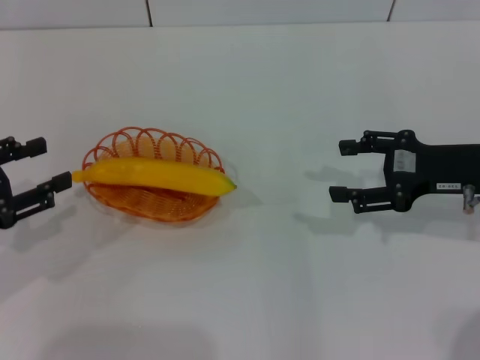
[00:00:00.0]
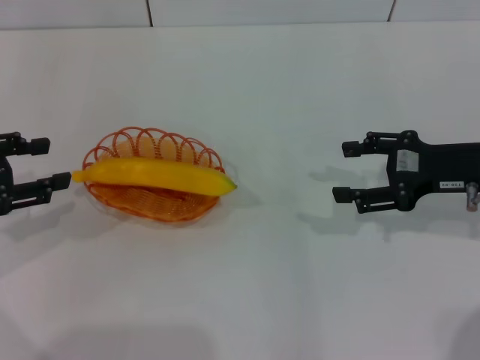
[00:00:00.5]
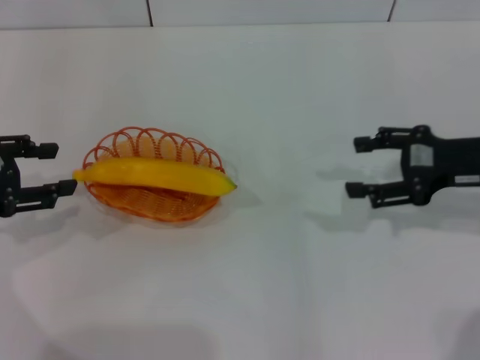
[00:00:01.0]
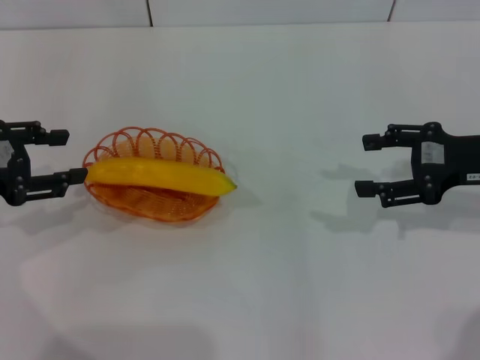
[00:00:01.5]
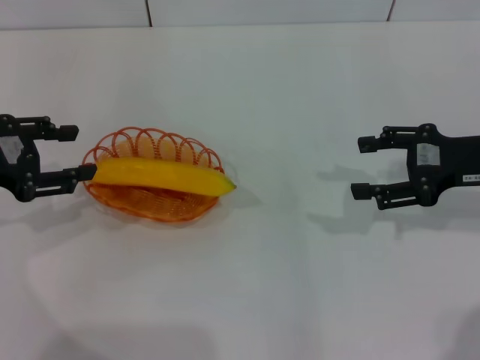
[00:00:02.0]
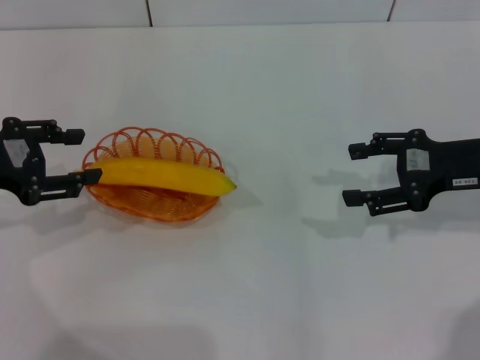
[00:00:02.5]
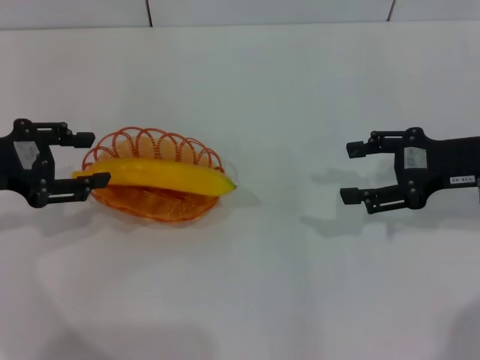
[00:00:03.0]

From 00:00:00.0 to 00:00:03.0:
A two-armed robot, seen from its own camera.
From 00:00:00.0 to 00:00:01.5: The left gripper moves about 5 cm.
From 00:00:01.5 to 00:00:03.0: The grippers make only small movements.

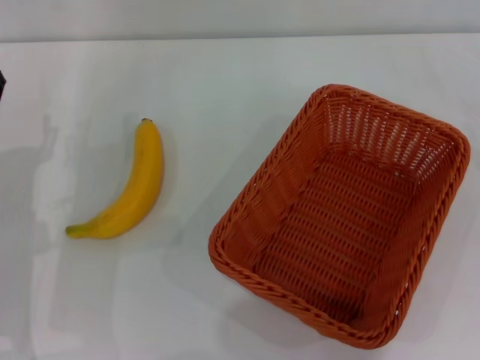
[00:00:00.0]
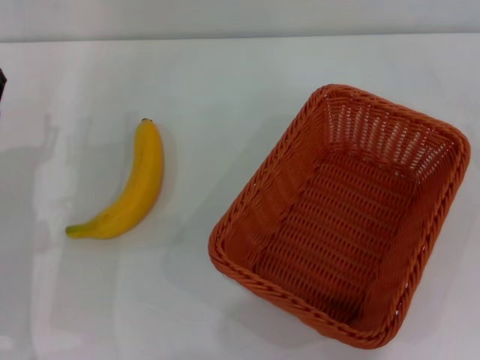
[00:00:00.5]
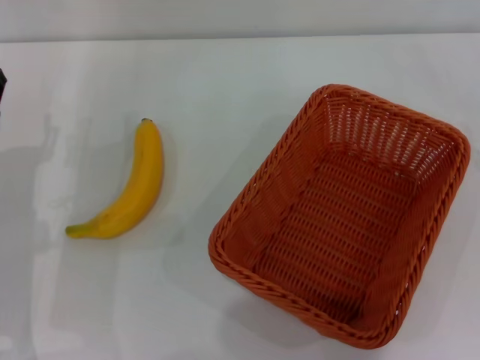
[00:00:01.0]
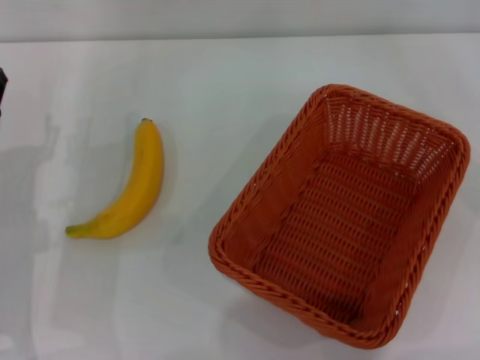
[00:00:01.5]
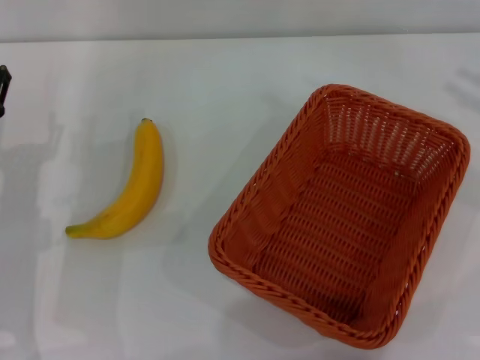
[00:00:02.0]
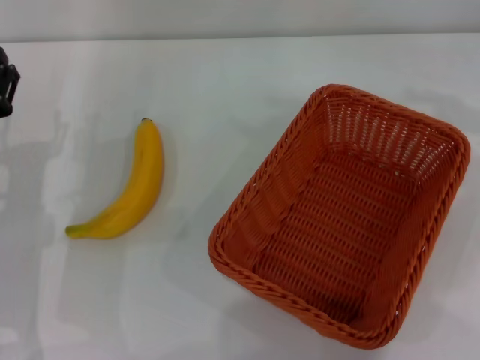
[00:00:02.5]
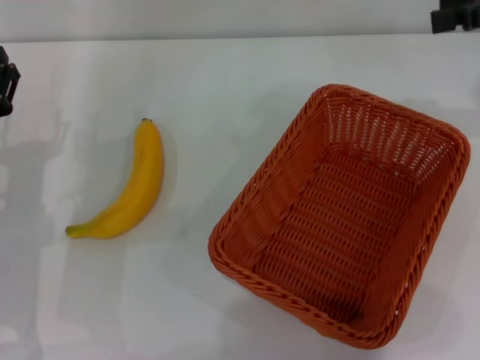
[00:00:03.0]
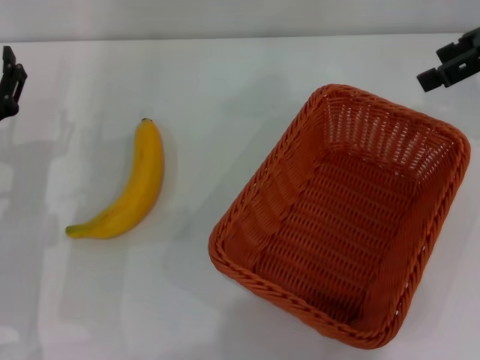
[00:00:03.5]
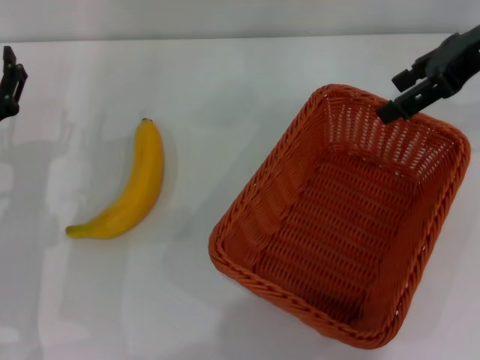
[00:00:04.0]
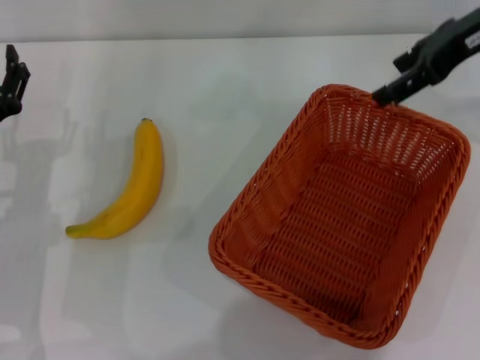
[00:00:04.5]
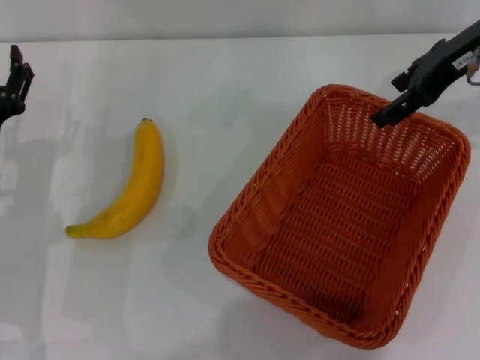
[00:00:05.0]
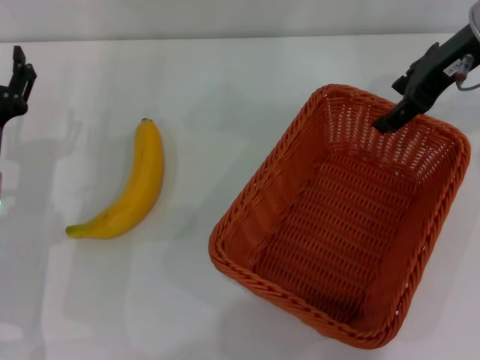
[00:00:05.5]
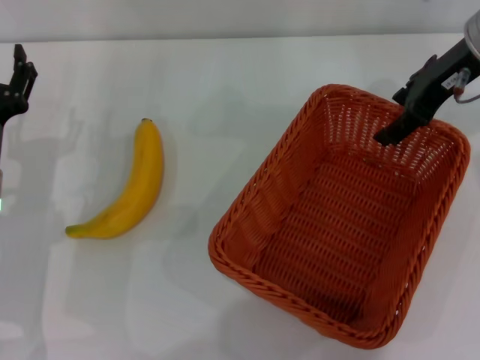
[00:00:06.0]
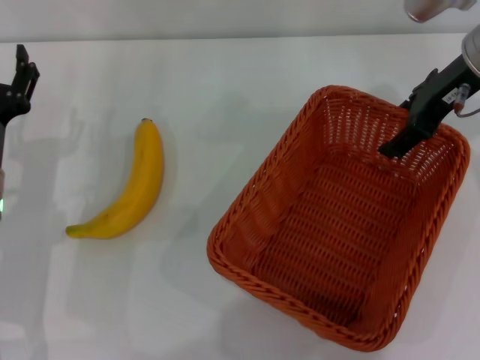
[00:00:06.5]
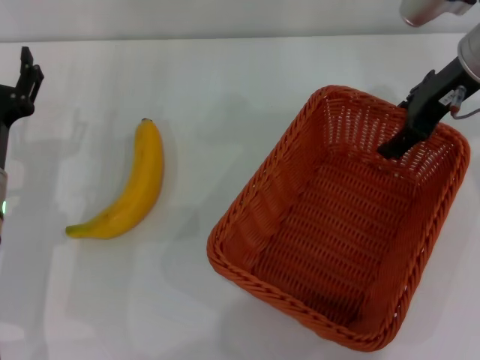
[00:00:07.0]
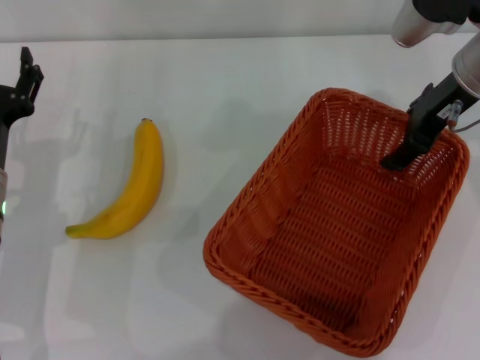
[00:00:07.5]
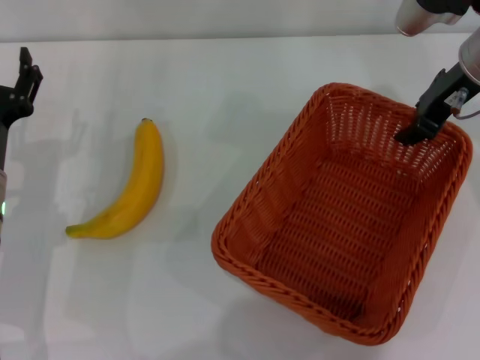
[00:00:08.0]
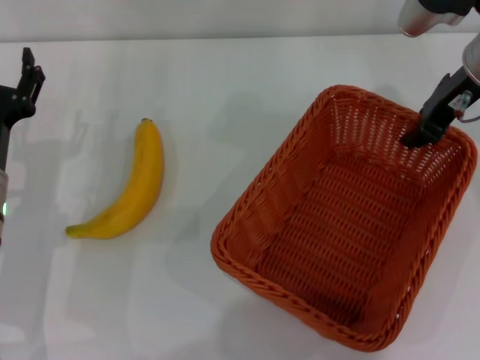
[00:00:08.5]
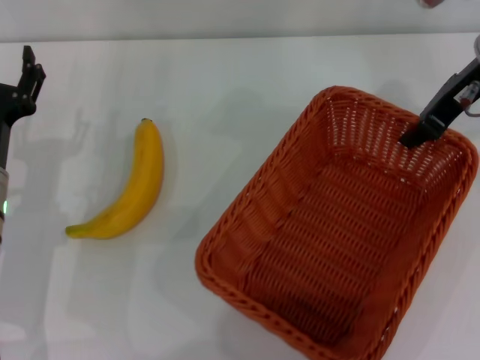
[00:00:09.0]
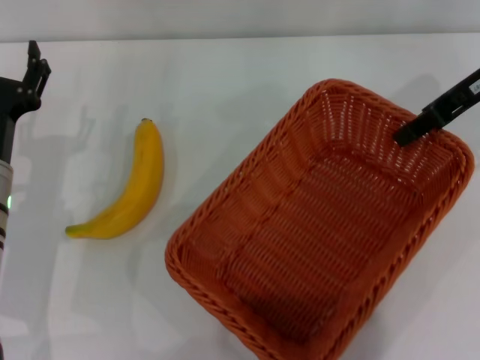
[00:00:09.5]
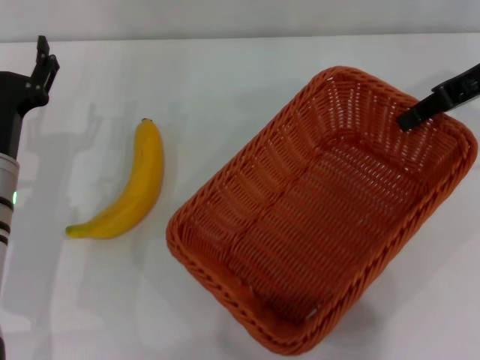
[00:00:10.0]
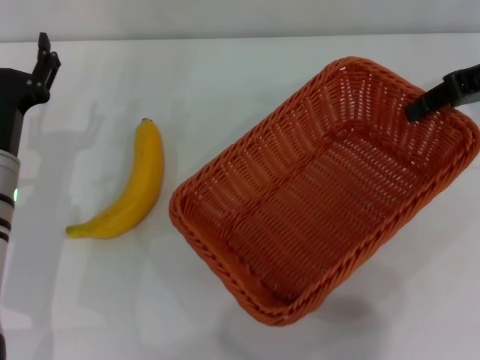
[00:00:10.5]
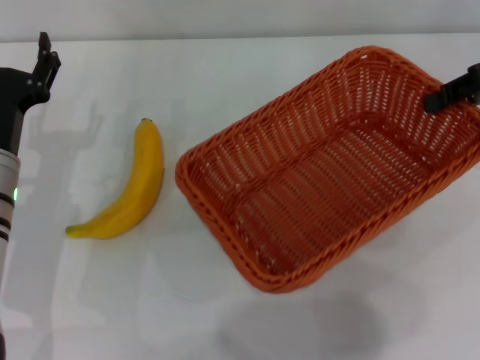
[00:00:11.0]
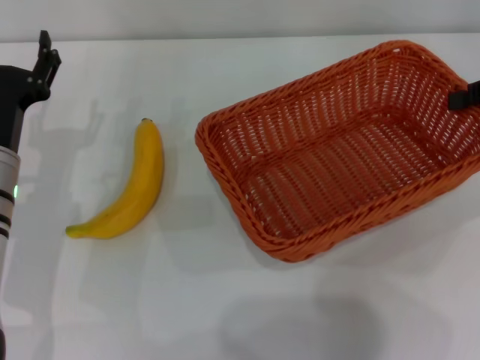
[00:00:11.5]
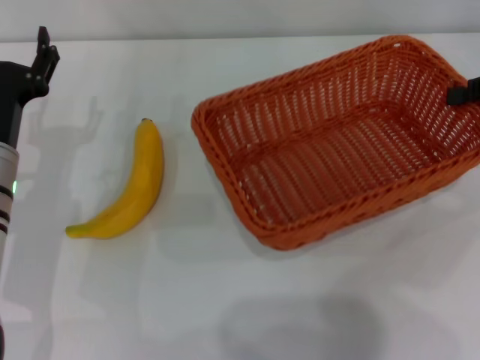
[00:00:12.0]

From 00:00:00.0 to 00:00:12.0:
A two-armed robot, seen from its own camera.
Step, from 00:00:00.0 to 00:00:10.5: Pick up the light basket with the right gripper.
From 00:00:02.0 to 00:00:04.0: The right gripper shifts some 15 cm to the left.
From 00:00:04.0 to 00:00:06.0: The right gripper changes place by approximately 5 cm.
From 00:00:06.0 to 00:00:08.0: The right gripper closes.
From 00:00:08.0 to 00:00:10.0: The right gripper moves to the right, some 5 cm, and closes up.
From 00:00:10.0 to 00:00:12.0: The right gripper goes about 10 cm to the right.

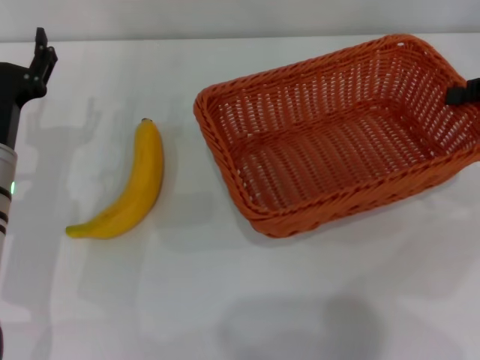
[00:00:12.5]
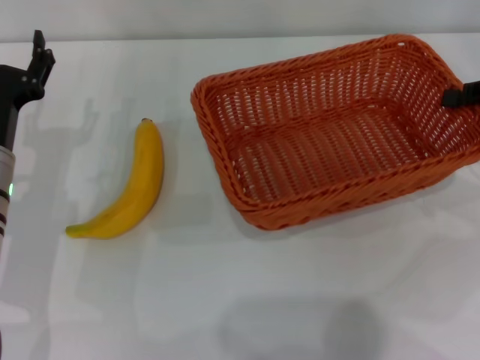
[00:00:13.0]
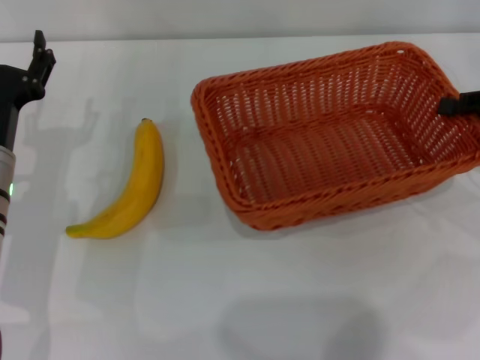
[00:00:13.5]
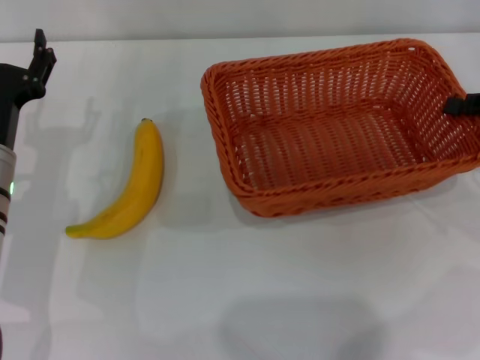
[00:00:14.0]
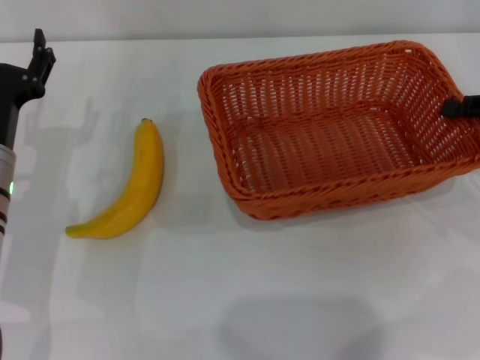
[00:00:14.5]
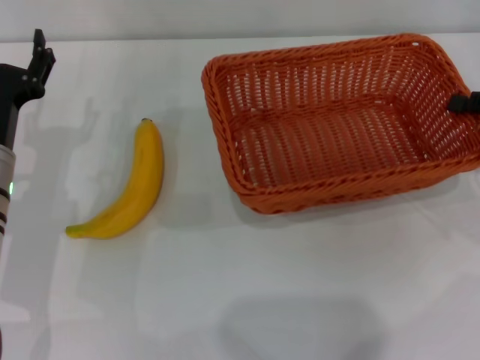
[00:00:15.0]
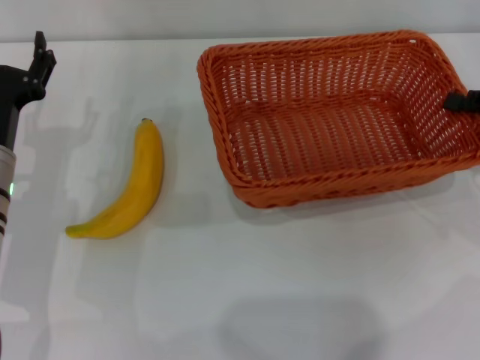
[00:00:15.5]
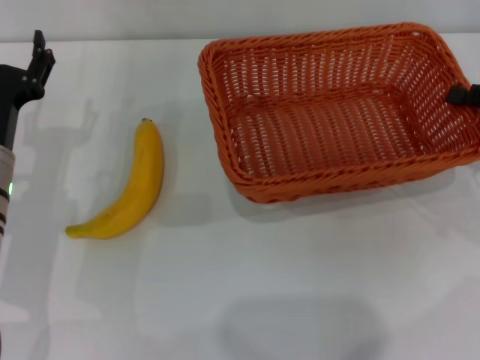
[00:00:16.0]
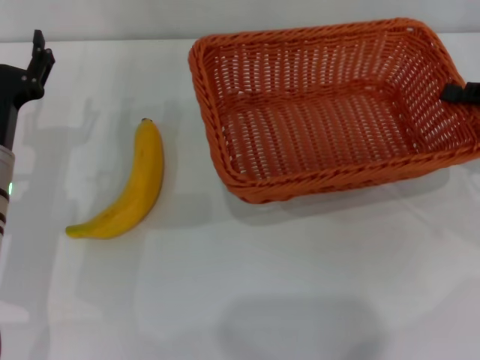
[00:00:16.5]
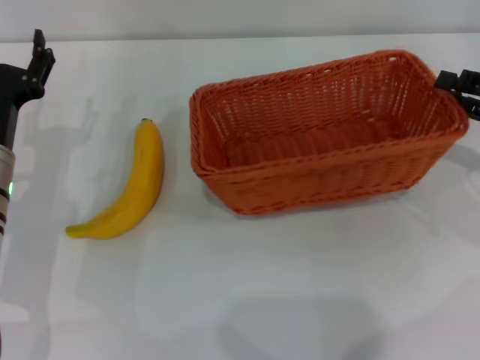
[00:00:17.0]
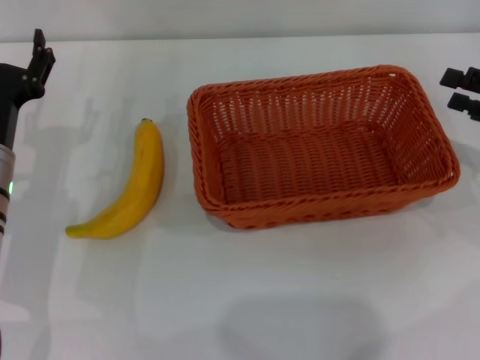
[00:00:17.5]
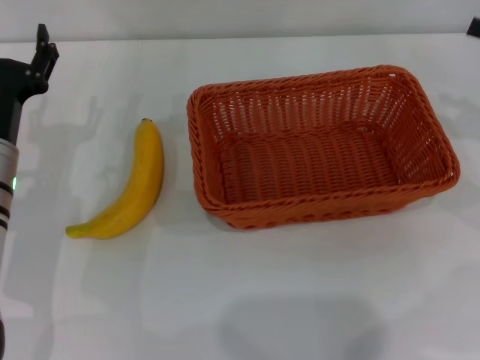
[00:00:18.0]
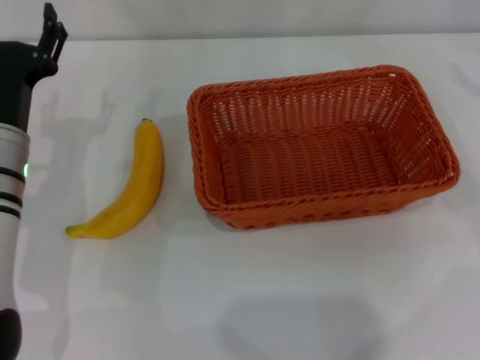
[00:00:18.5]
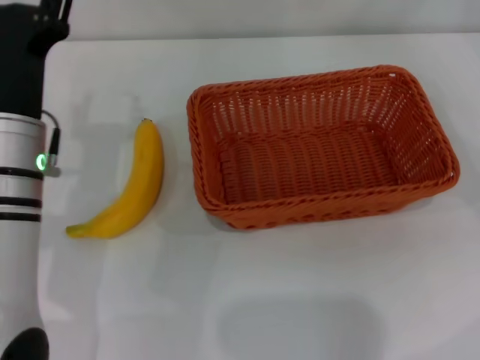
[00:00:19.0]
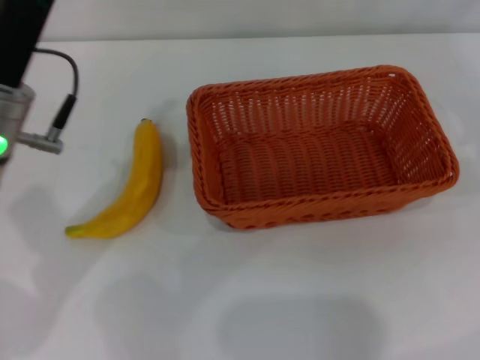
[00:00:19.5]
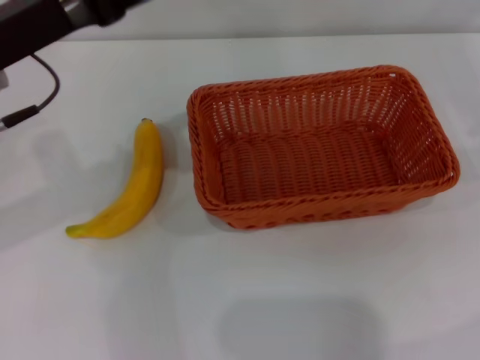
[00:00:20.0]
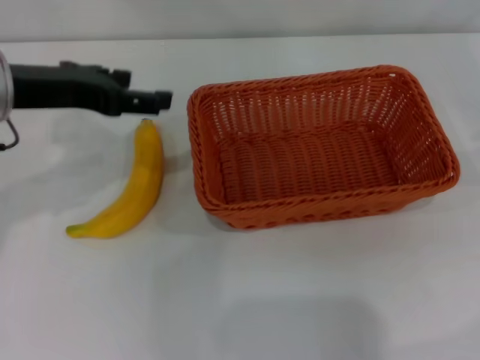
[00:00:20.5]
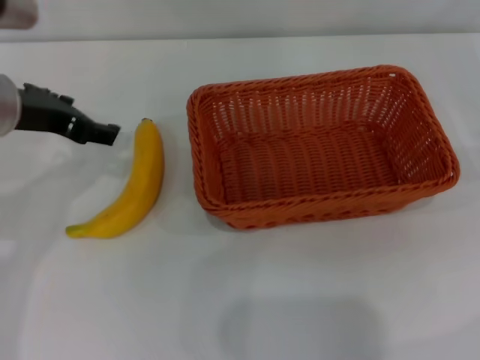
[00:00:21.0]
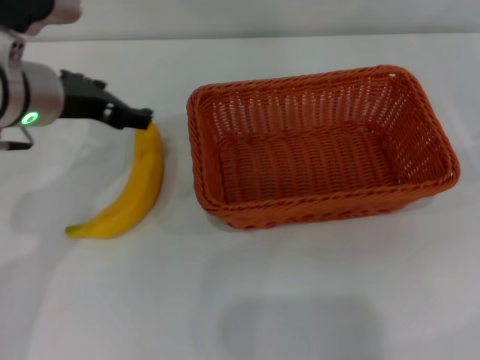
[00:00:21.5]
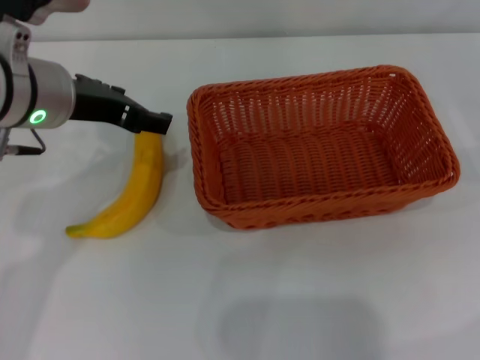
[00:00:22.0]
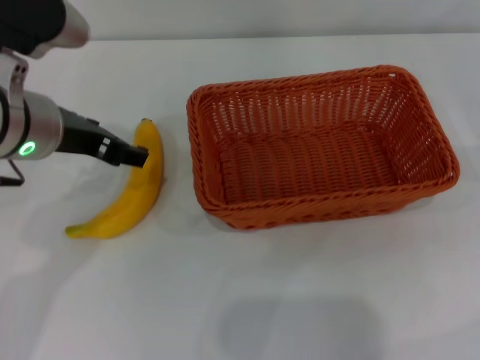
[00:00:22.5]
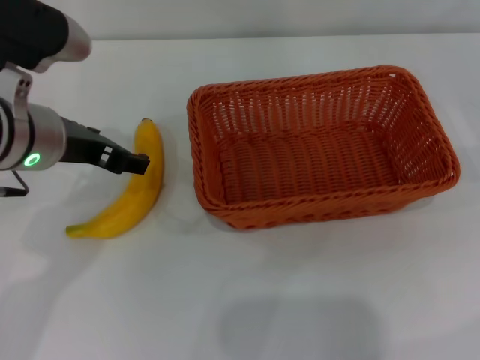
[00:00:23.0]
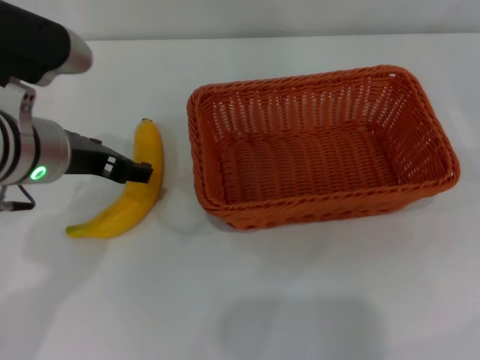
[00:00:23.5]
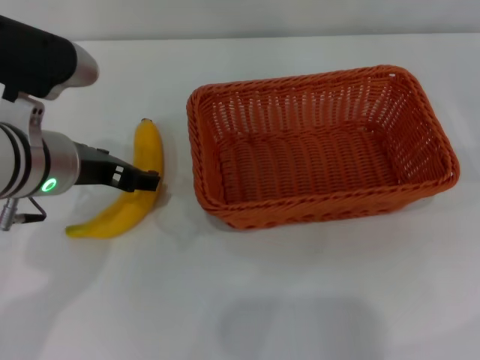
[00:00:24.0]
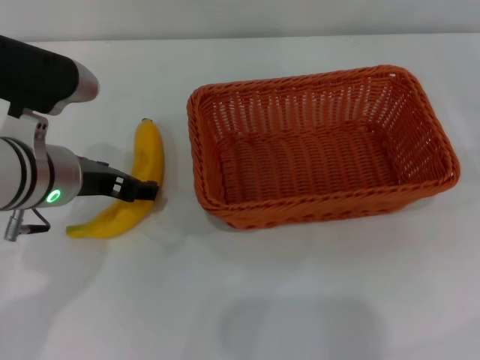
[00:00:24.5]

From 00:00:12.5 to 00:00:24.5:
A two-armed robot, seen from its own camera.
Step, from 00:00:12.5 to 00:00:17.0: Place the light basket in the center of view with the right gripper.
From 00:00:12.5 to 00:00:14.5: The right gripper moves some 5 cm.
From 00:00:14.5 to 00:00:16.5: The grippers make only small movements.
From 00:00:16.5 to 00:00:18.5: The right gripper moves upward, some 10 cm, and opens its fingers.
From 00:00:18.5 to 00:00:20.5: The left gripper goes approximately 15 cm upward.
From 00:00:20.5 to 00:00:22.5: The left gripper changes place by some 5 cm.
From 00:00:22.5 to 00:00:24.5: The left gripper shifts by roughly 5 cm.
